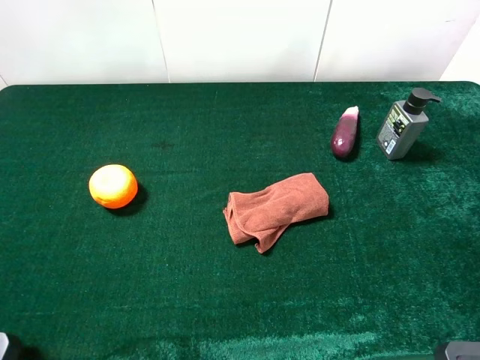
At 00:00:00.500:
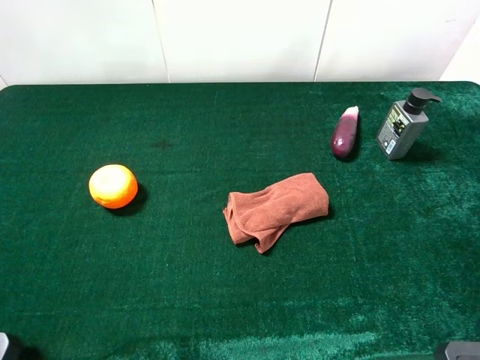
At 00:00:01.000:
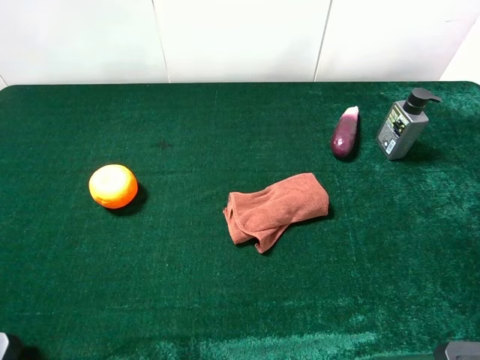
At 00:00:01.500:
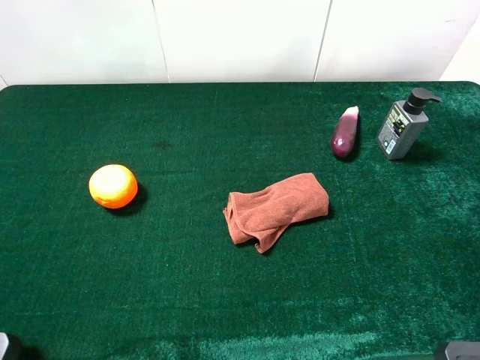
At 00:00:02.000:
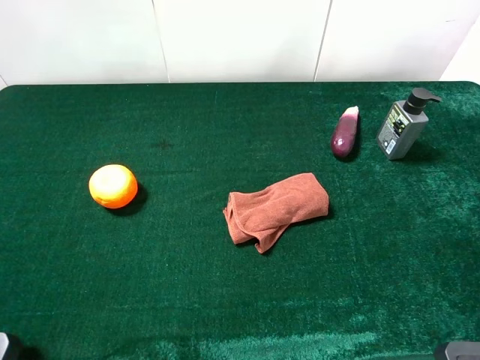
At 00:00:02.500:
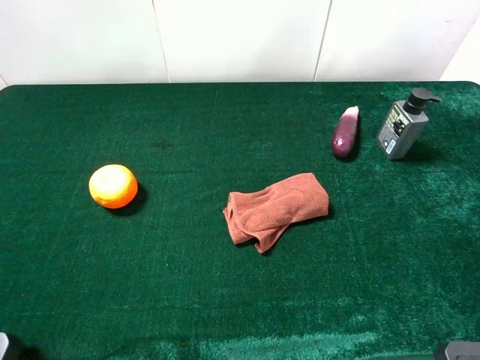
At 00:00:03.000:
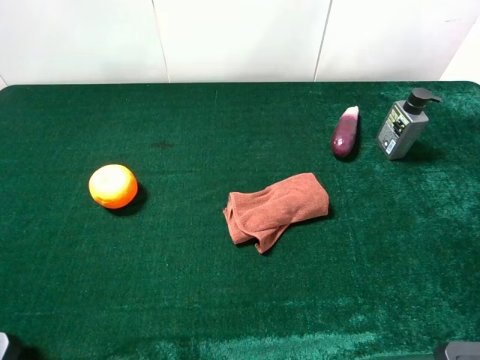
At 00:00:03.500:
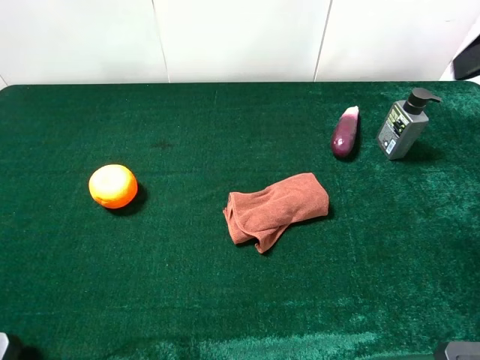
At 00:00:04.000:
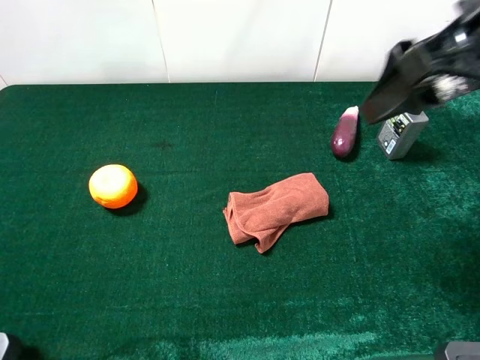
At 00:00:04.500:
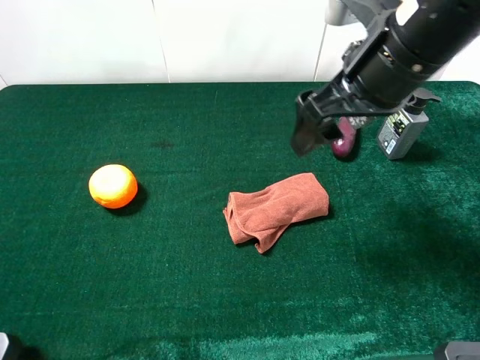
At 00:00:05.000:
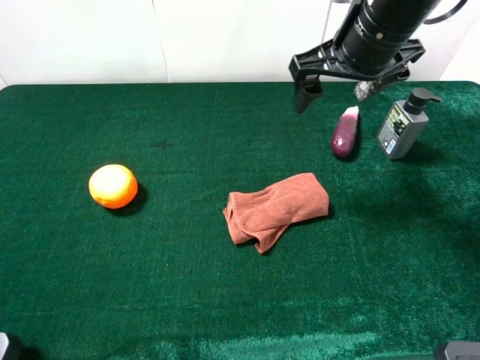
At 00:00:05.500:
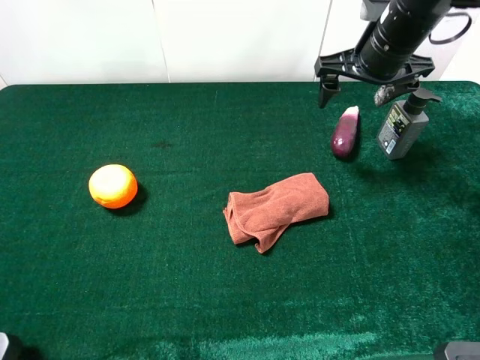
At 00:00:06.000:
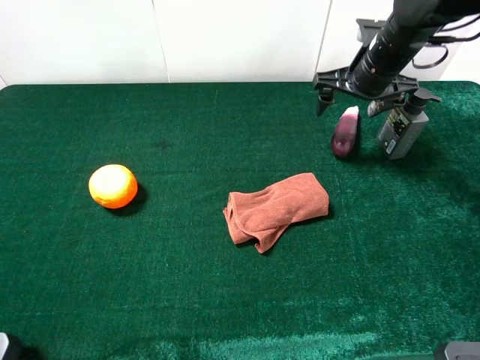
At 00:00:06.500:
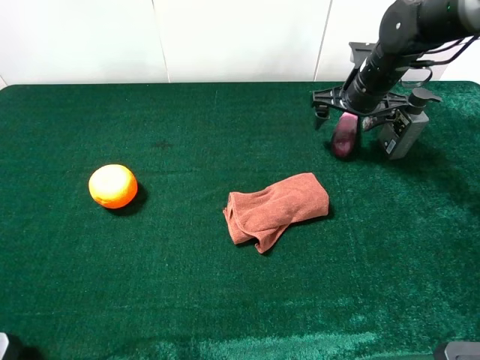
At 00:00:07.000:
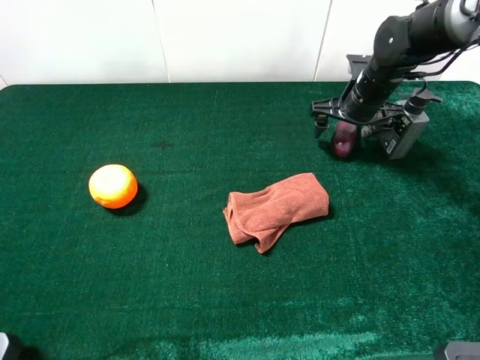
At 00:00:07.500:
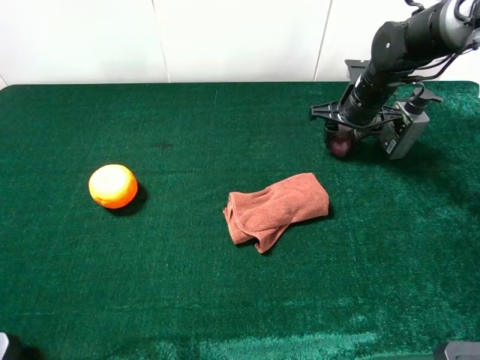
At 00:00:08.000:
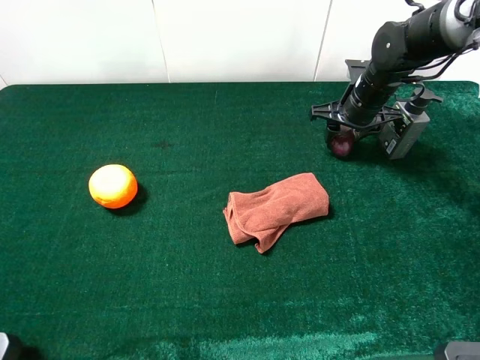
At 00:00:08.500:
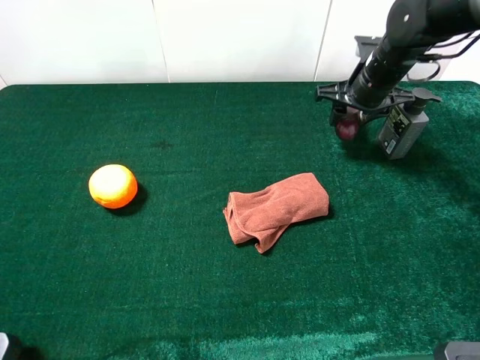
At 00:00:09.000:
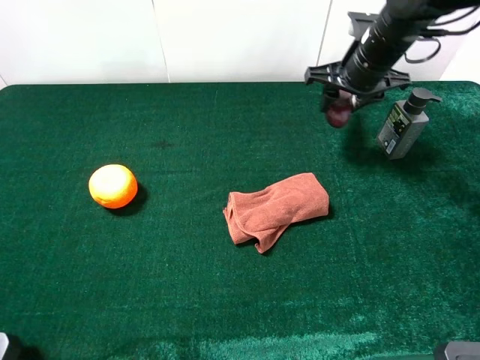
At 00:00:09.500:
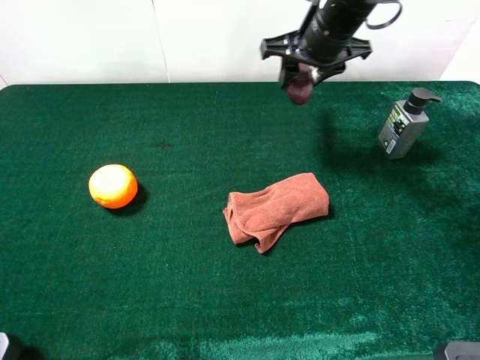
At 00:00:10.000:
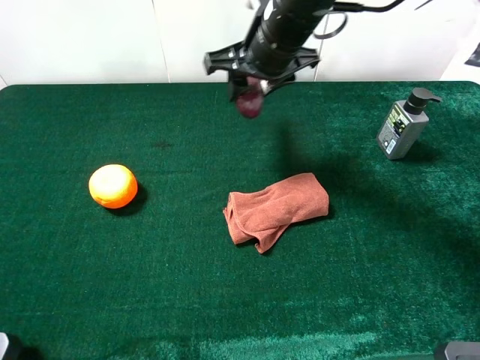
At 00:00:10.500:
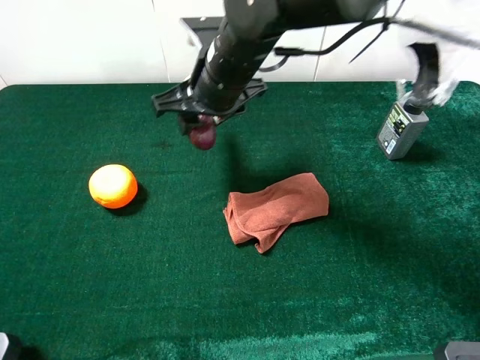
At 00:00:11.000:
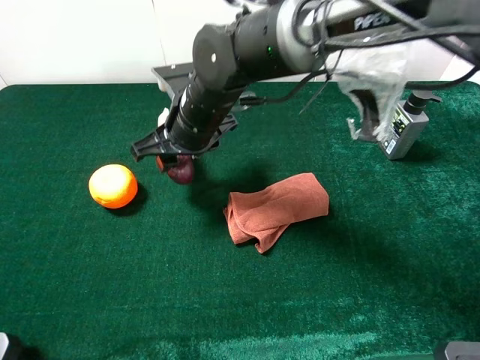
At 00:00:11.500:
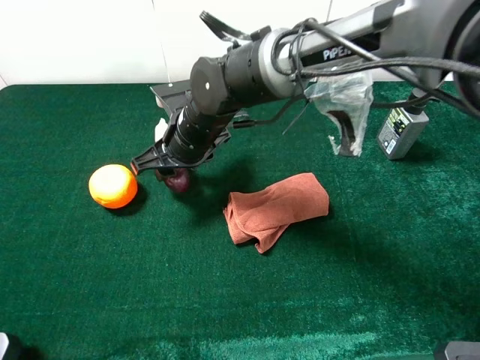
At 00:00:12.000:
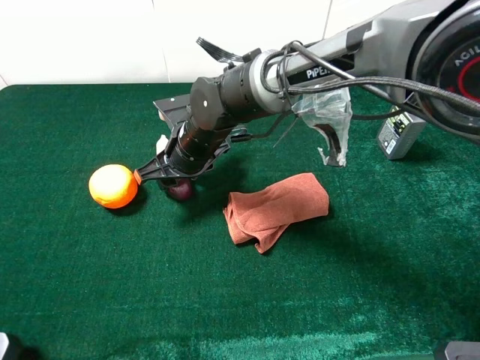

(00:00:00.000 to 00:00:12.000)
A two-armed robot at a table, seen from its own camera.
Task of the whole recording: the gripper move the object.
Step, 00:00:00.000 - 00:00:08.000: Grasp the eggplant with the right gripper.
00:00:02.000 - 00:00:04.000: The right gripper goes roughly 20 cm forward and to the left.
00:00:04.000 - 00:00:06.000: The right gripper travels forward and downward by roughly 25 cm.
00:00:06.000 - 00:00:08.000: The right gripper travels downward by some 5 cm, and closes.
00:00:08.000 - 00:00:10.000: The right gripper goes about 20 cm to the left, upward and backward.
00:00:10.000 - 00:00:12.000: The right gripper is displaced downward and to the left by roughly 15 cm.

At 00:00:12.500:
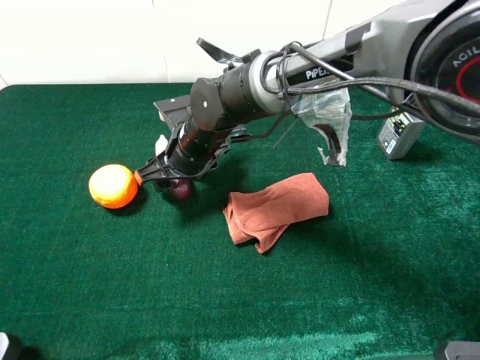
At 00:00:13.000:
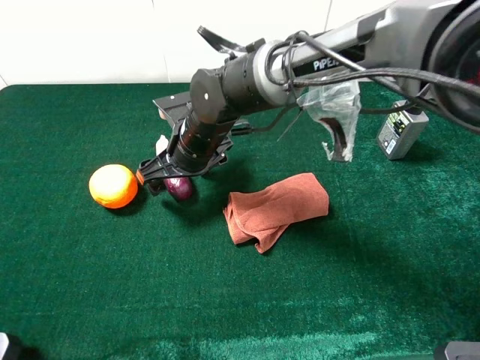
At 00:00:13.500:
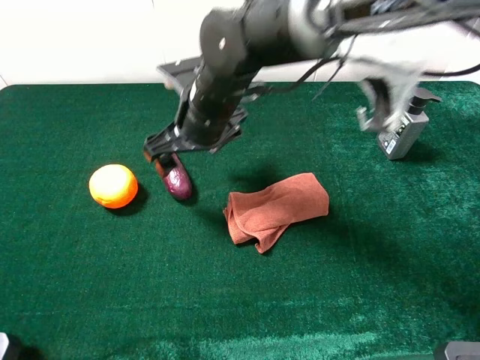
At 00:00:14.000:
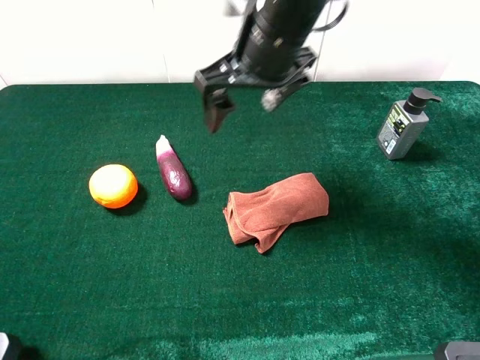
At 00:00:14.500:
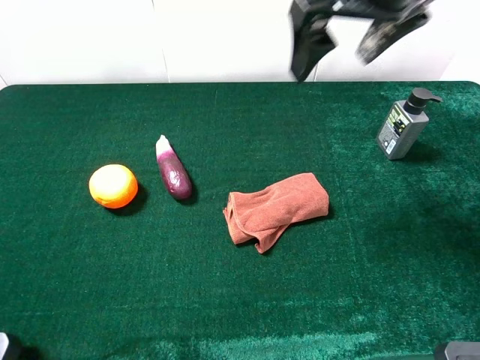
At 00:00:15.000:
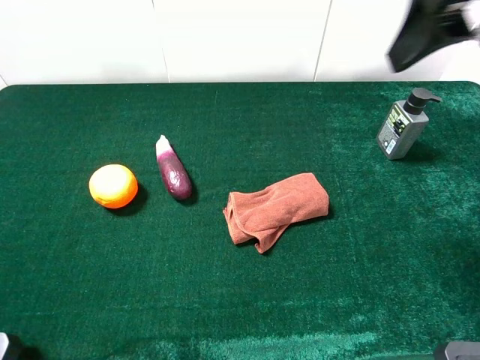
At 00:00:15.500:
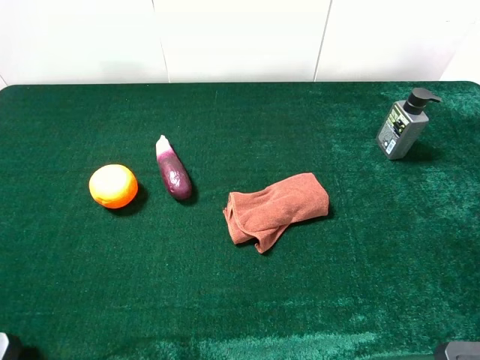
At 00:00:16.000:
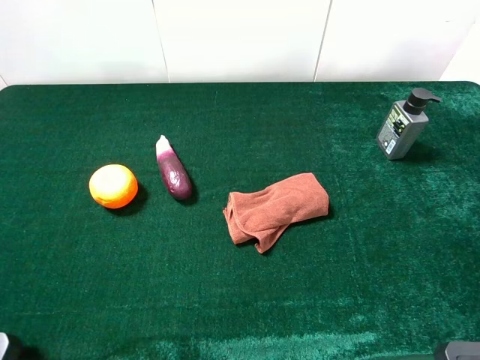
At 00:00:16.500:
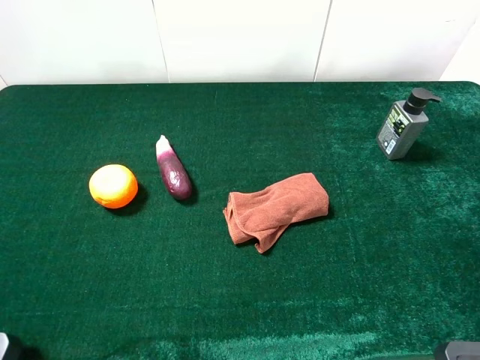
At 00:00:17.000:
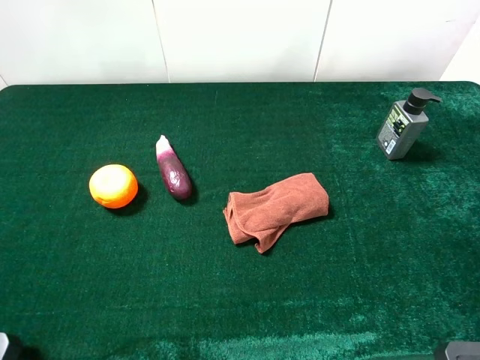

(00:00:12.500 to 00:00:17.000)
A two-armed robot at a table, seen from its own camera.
Task of the whole recording: the gripper move the object.
00:00:12.500 - 00:00:14.500: The right gripper travels upward and to the right by some 35 cm, and opens its fingers.
00:00:14.500 - 00:00:17.000: The right gripper is displaced backward and to the right by approximately 30 cm.
